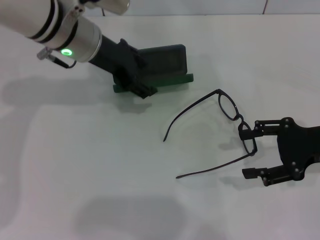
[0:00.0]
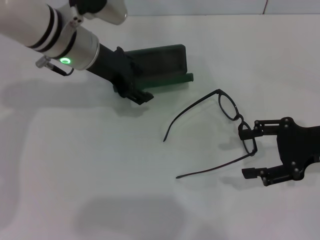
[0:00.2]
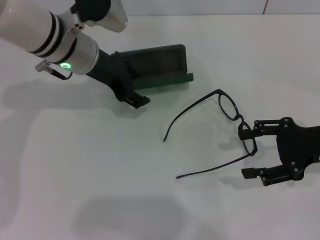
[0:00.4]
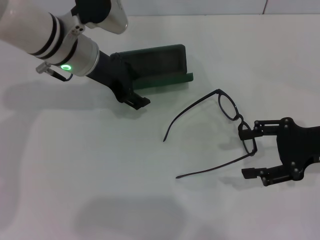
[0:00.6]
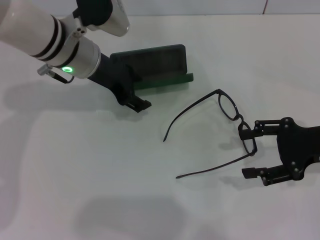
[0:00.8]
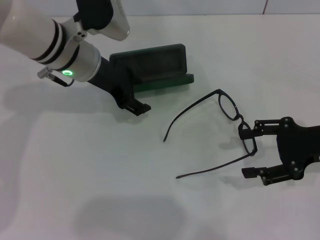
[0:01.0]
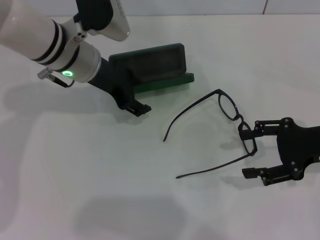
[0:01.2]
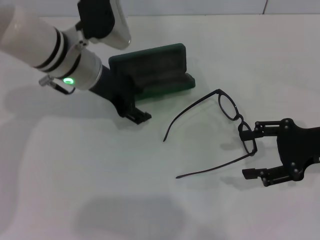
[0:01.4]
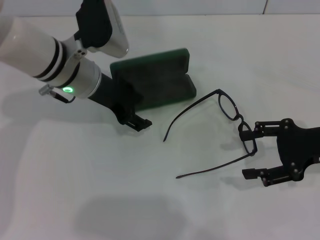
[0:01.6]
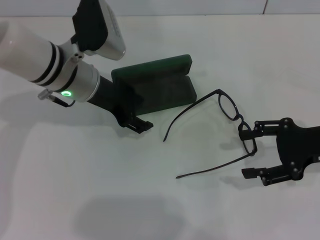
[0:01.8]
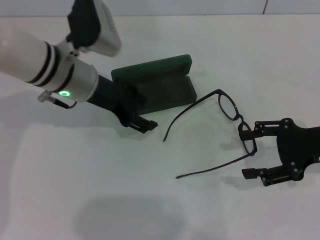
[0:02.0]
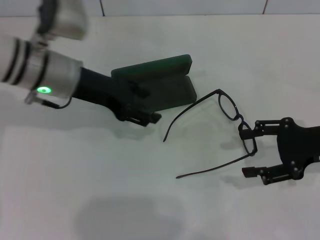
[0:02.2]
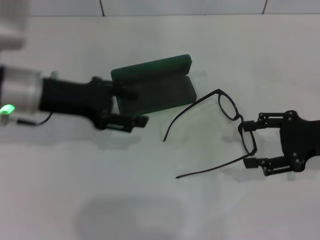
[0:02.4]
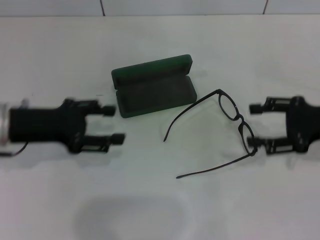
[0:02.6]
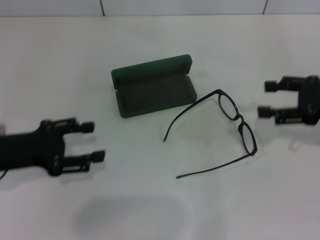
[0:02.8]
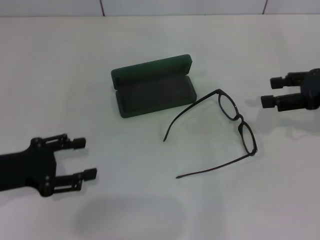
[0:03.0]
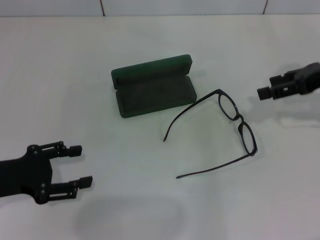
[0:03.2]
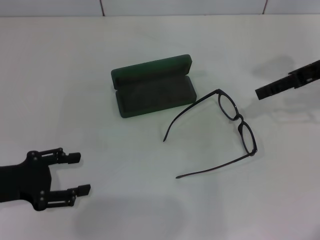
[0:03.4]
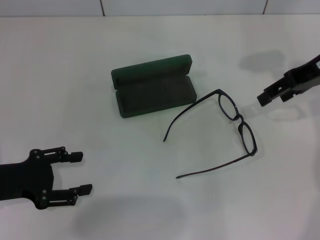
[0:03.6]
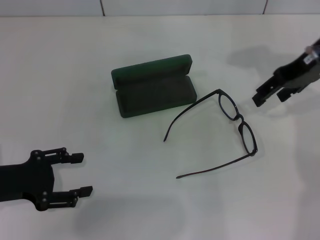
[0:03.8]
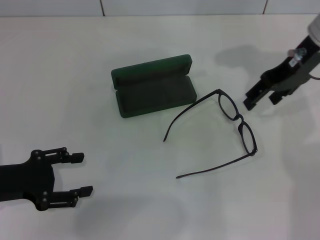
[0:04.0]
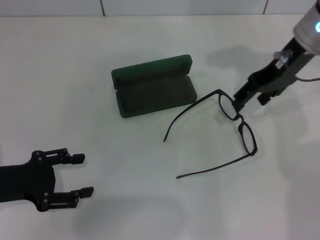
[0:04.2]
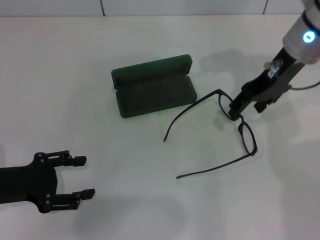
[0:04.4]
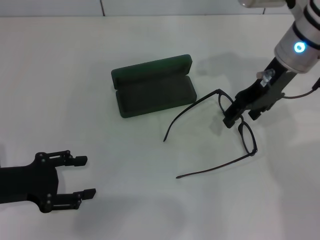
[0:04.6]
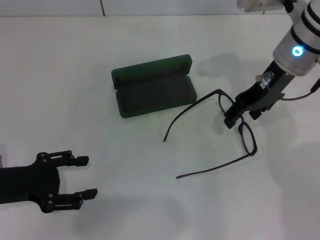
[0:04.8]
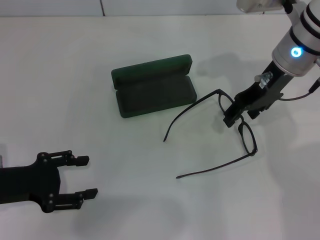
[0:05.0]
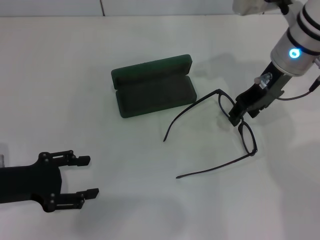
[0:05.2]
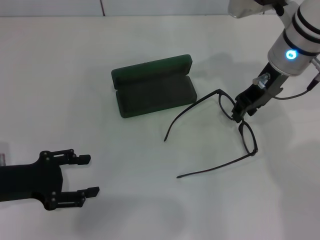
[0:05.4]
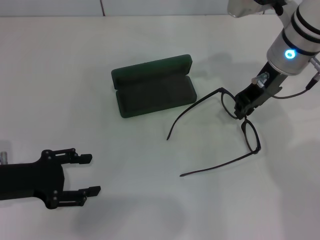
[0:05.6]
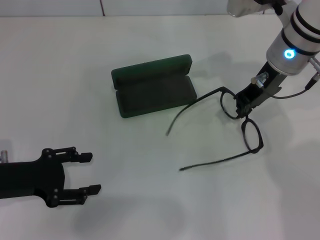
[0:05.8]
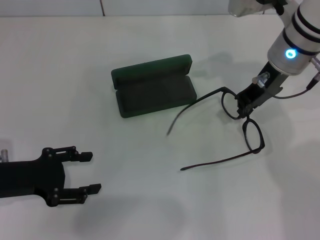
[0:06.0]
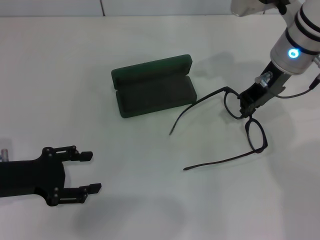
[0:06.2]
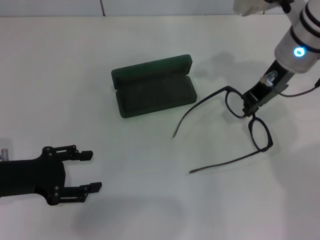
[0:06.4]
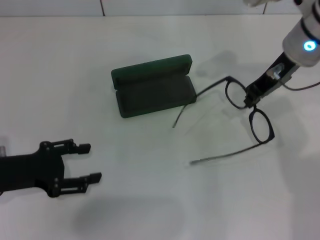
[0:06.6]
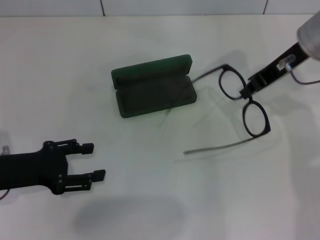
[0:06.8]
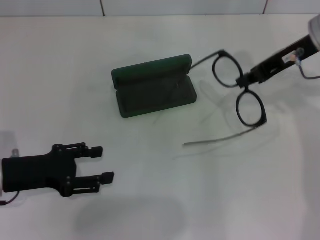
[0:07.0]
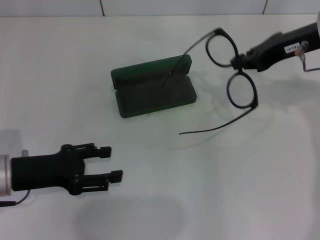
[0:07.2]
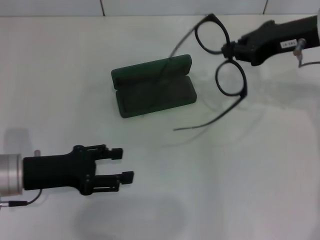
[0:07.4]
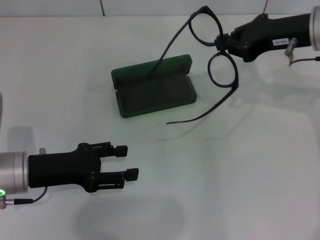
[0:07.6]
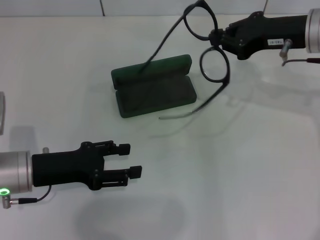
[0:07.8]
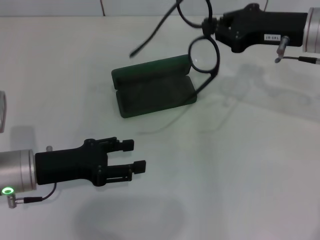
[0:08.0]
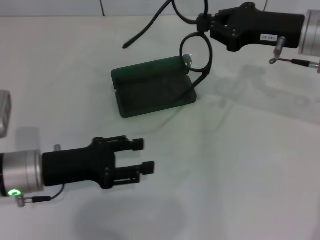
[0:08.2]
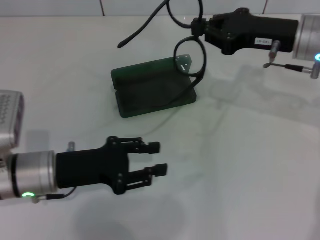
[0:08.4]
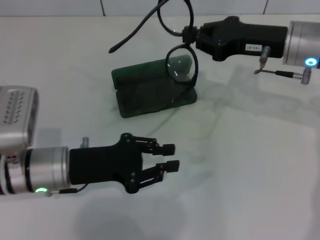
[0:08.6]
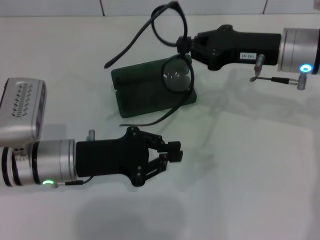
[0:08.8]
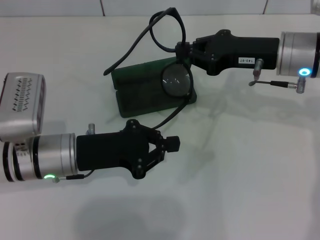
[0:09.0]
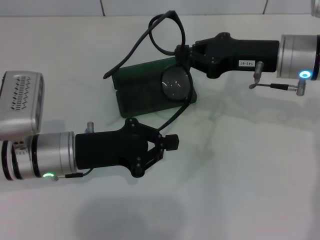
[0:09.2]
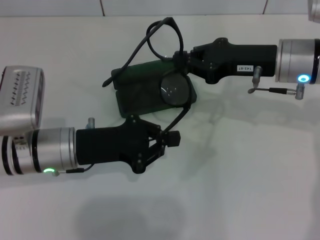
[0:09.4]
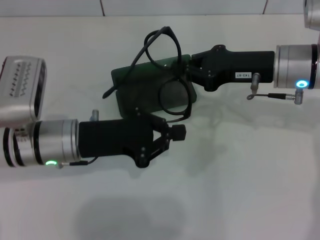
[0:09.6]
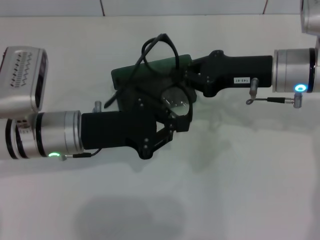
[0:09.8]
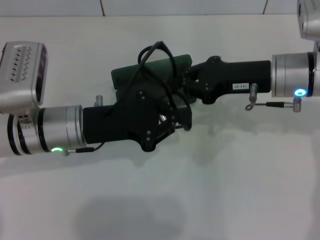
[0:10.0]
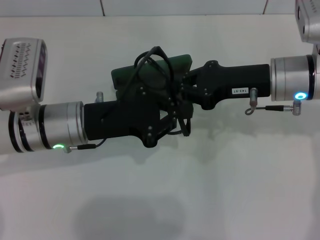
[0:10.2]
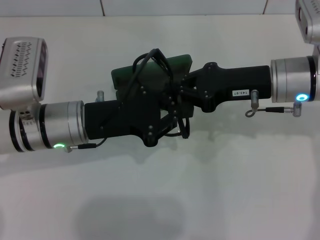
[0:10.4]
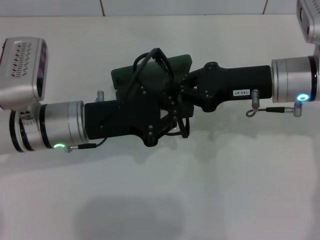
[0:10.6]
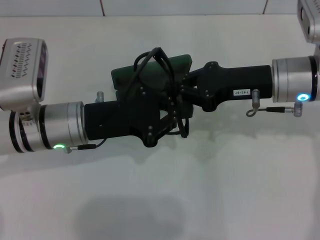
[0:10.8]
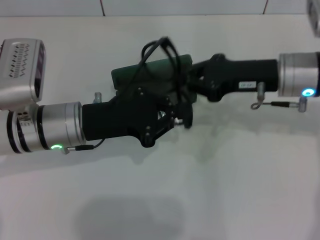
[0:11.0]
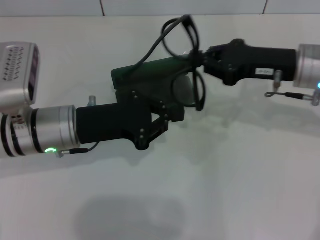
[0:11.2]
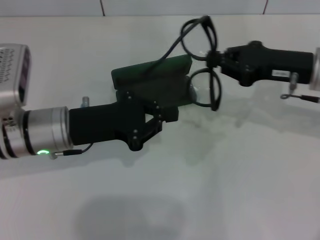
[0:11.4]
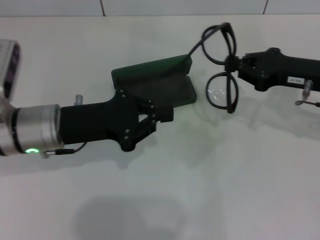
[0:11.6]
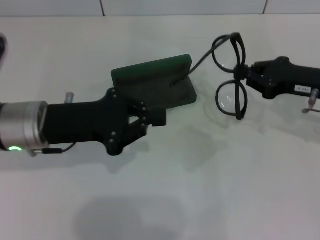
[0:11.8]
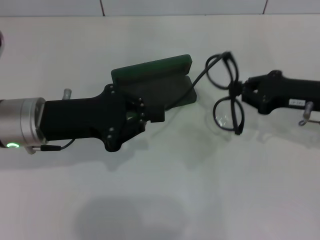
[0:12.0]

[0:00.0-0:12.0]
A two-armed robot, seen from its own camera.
Step, 0:02.0 to 0:05.6: Grab the eyeglass frame with your right hand.
0:00.0 to 0:01.6: The left gripper shifts by some 5 cm.
0:01.6 to 0:03.0: The left gripper shifts approximately 20 cm backward and to the left, while the right gripper heads forward, covering approximately 5 cm.
0:03.0 to 0:04.4: The right gripper travels to the left and forward by about 15 cm.
0:04.4 to 0:06.0: The right gripper closes.
0:06.0 to 0:07.6: The right gripper moves to the right, approximately 5 cm.
0:07.6 to 0:09.0: The right gripper moves some 5 cm; the left gripper goes some 5 cm to the right, and closes.
0:10.4 to 0:12.0: The right gripper travels to the right by roughly 10 cm.

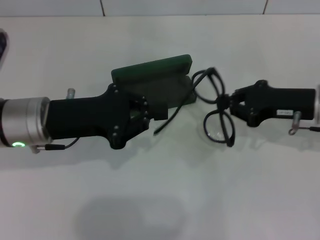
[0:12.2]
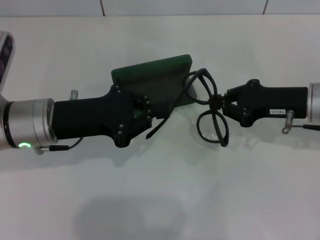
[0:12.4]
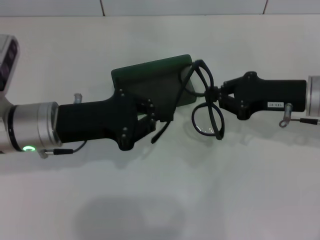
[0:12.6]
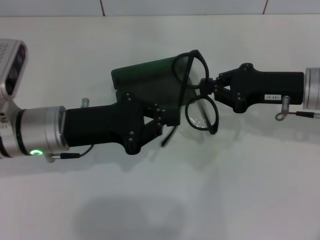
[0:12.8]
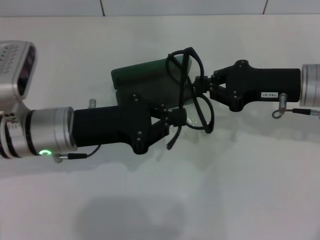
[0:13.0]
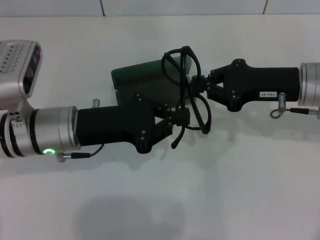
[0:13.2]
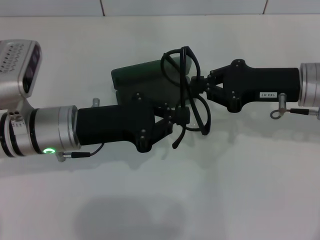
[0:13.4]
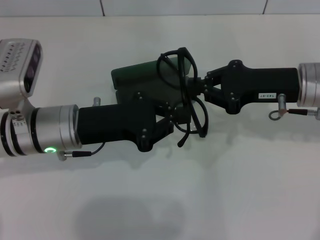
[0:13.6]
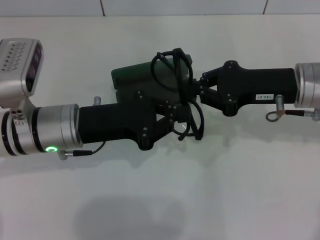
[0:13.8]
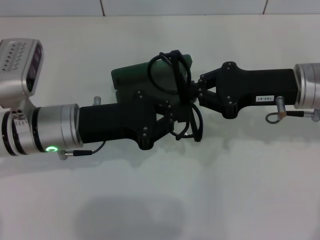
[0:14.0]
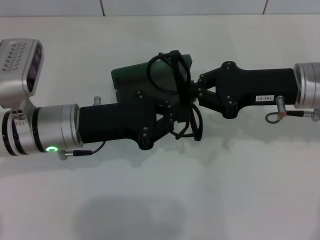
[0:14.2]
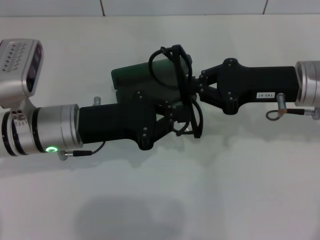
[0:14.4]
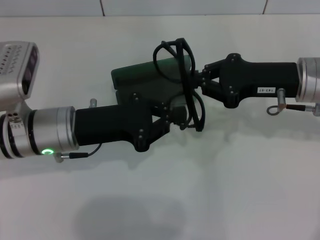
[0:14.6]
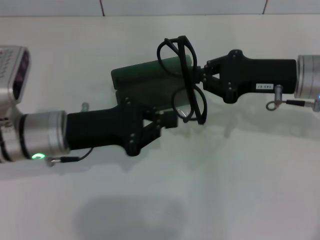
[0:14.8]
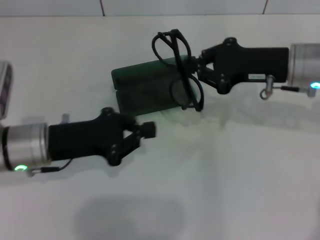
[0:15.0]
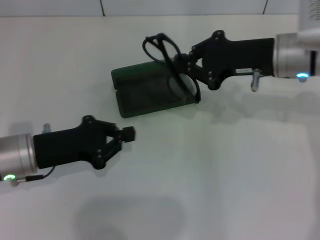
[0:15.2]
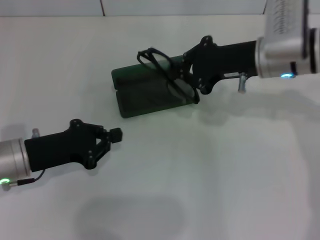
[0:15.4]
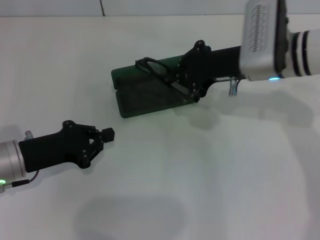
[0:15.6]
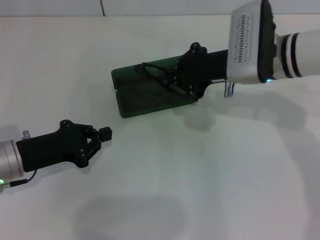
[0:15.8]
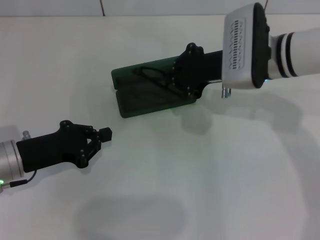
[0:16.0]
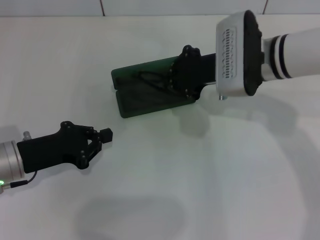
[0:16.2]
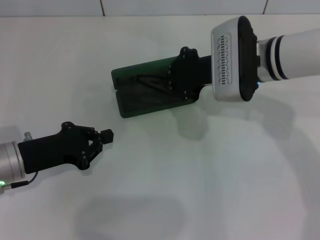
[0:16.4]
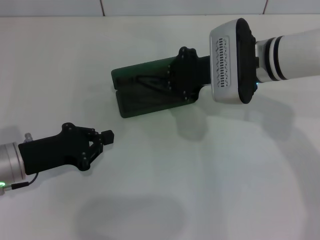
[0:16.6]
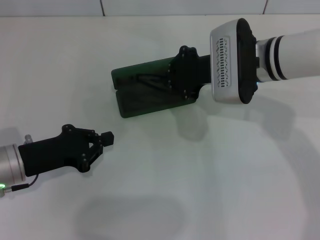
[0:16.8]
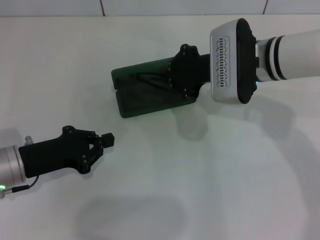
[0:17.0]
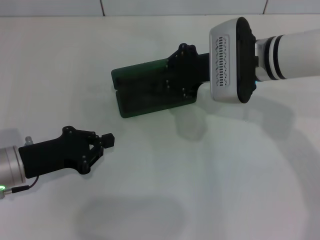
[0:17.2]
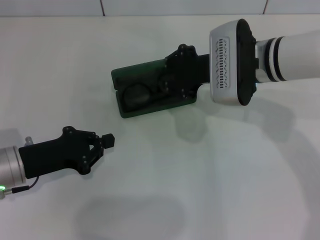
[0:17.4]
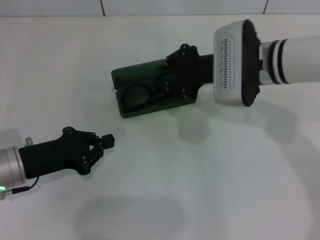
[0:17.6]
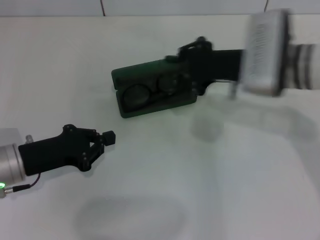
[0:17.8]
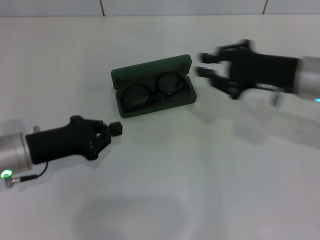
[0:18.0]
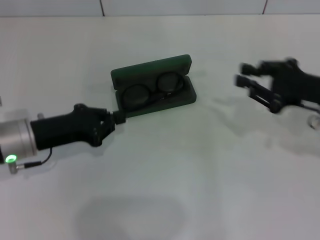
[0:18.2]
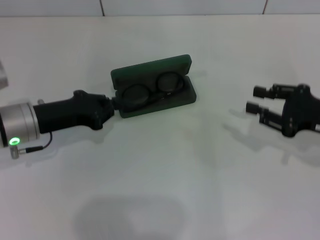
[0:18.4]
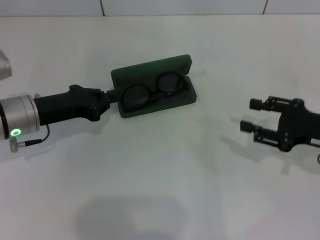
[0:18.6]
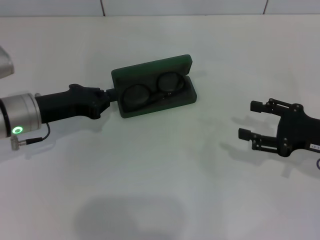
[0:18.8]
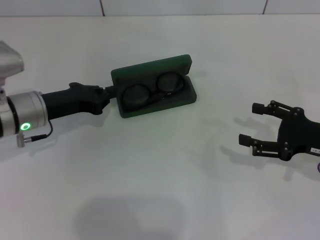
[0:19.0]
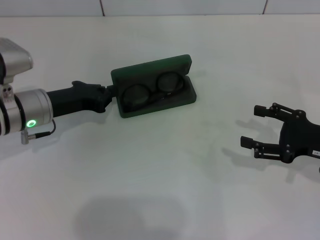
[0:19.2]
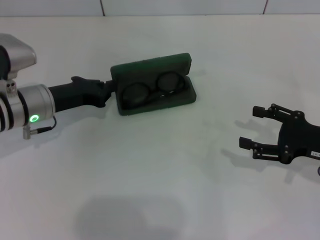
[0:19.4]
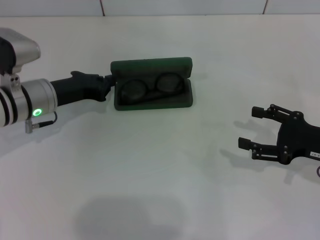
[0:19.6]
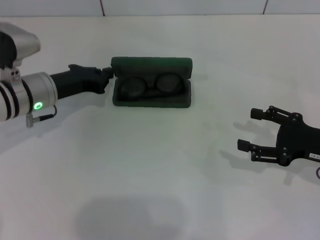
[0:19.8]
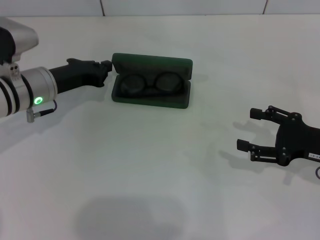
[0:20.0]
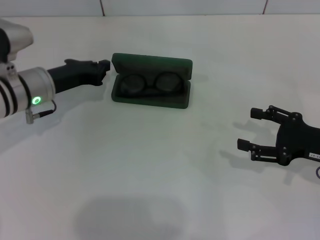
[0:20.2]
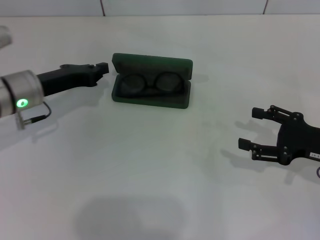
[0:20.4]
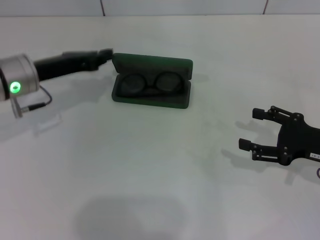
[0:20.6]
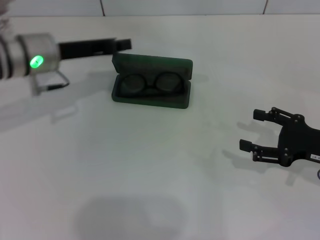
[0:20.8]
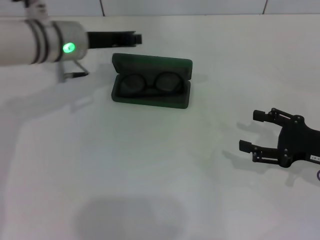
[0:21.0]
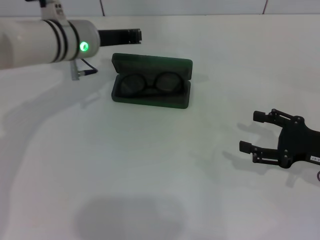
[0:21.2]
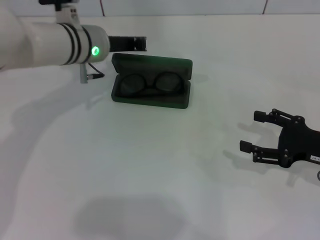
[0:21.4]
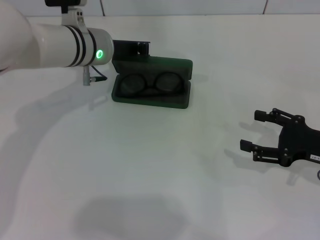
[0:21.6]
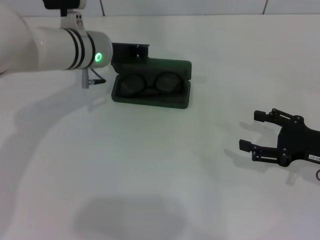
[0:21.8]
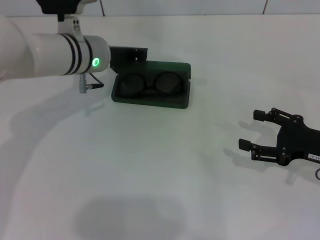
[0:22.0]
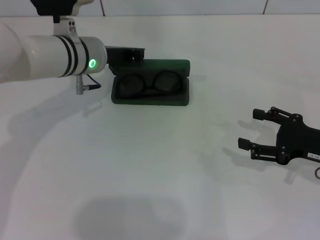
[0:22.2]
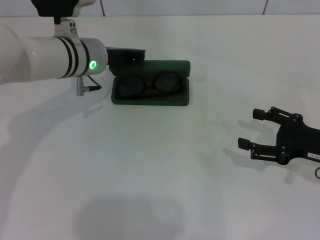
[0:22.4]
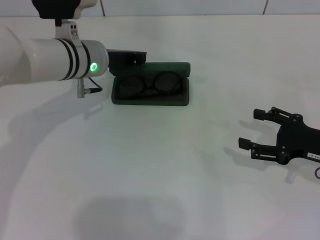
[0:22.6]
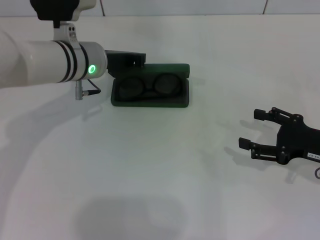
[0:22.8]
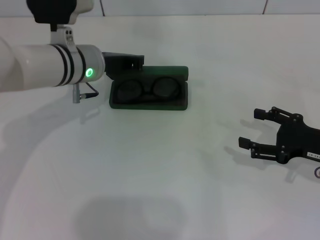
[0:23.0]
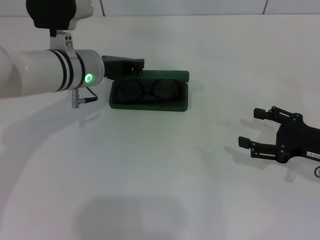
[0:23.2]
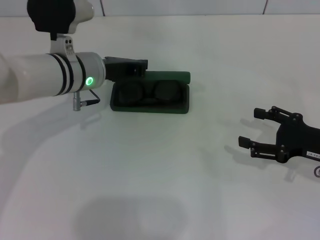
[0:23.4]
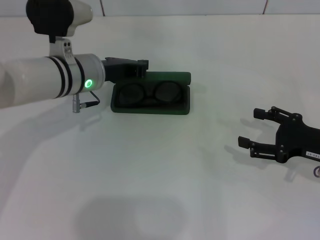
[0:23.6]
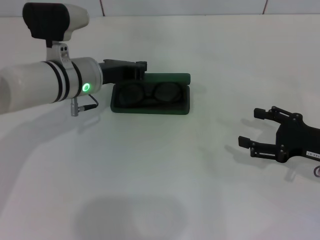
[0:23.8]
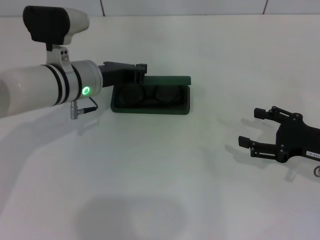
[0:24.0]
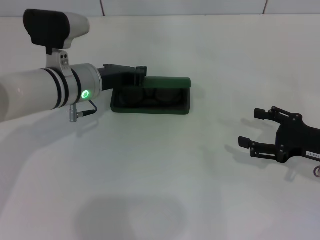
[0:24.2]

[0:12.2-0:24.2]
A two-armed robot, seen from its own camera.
Step, 0:14.2 to 0:17.4: Put the glasses into the case with your right hand.
0:12.2 to 0:13.8: The right gripper changes place by approximately 5 cm.
0:13.8 to 0:15.2: The left gripper moves to the left, about 5 cm.
0:15.2 to 0:16.6: The right gripper goes some 5 cm to the left.
0:16.6 to 0:18.2: The right gripper shifts approximately 15 cm to the right and backward.
0:18.2 to 0:19.8: The right gripper shifts by about 5 cm, and opens up, while the left gripper heads forward, covering roughly 10 cm.
0:19.8 to 0:21.2: The left gripper heads to the right, upward and forward, covering approximately 10 cm.
0:21.2 to 0:22.6: There are only small adjustments of the grippers.
0:22.6 to 0:24.2: There are only small adjustments of the grippers.
